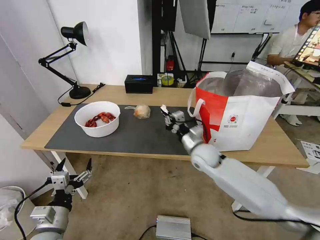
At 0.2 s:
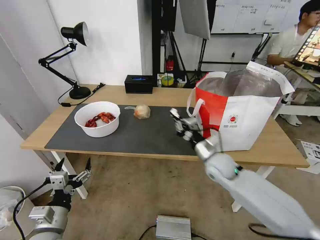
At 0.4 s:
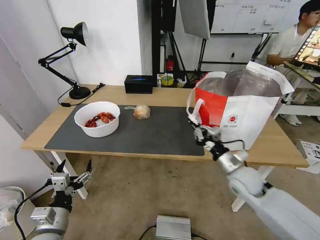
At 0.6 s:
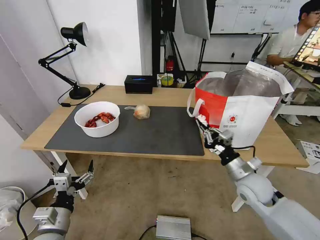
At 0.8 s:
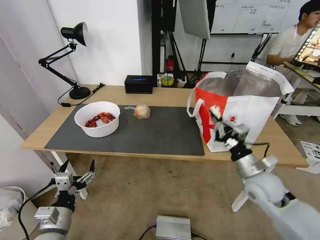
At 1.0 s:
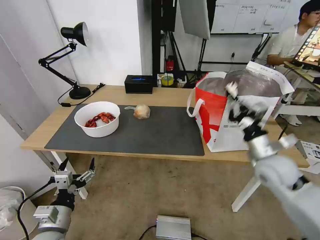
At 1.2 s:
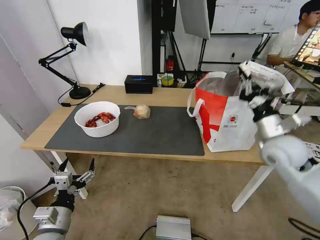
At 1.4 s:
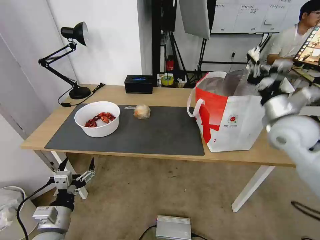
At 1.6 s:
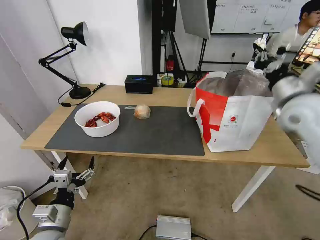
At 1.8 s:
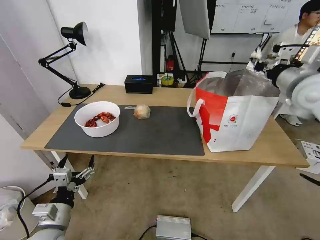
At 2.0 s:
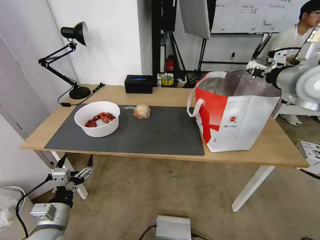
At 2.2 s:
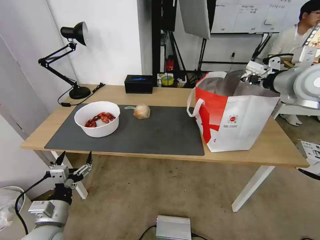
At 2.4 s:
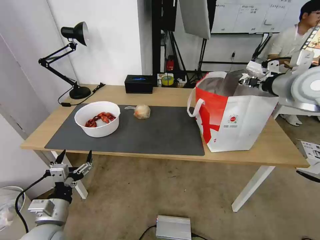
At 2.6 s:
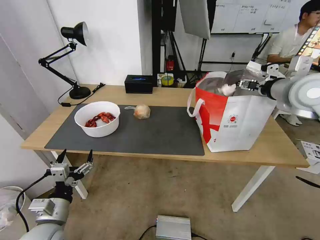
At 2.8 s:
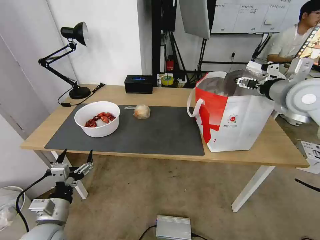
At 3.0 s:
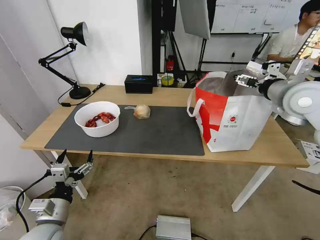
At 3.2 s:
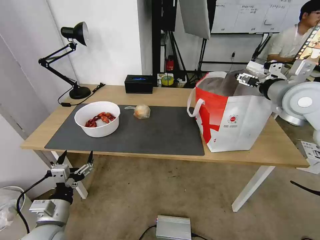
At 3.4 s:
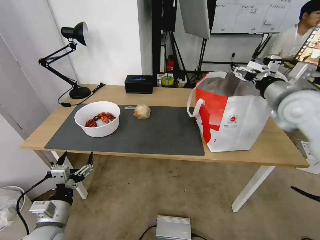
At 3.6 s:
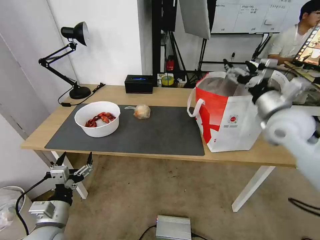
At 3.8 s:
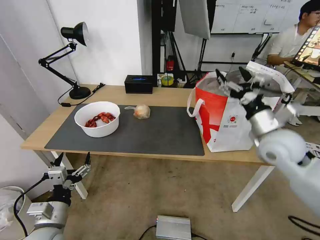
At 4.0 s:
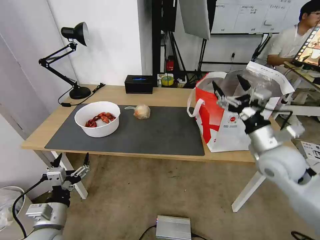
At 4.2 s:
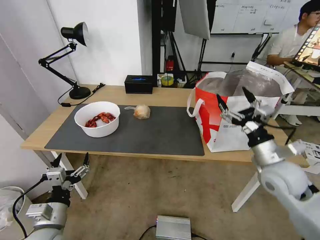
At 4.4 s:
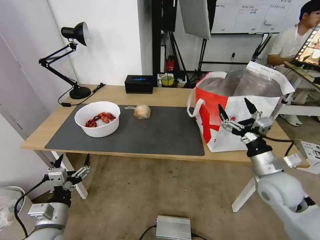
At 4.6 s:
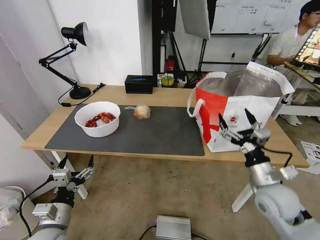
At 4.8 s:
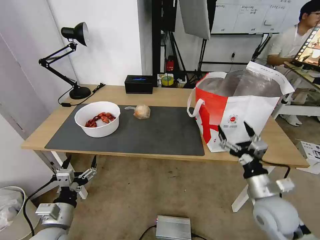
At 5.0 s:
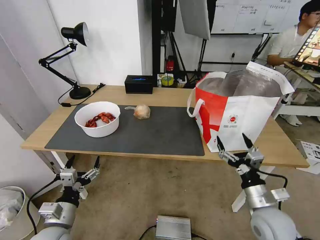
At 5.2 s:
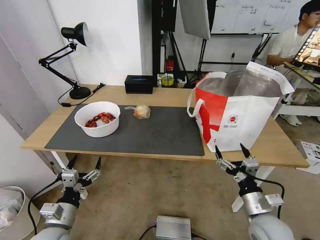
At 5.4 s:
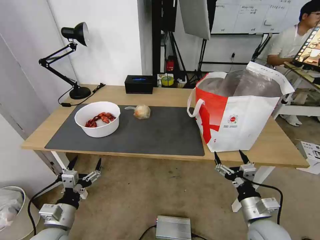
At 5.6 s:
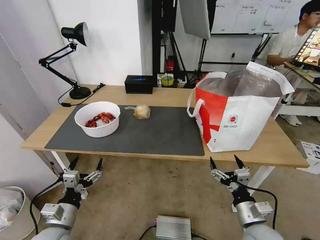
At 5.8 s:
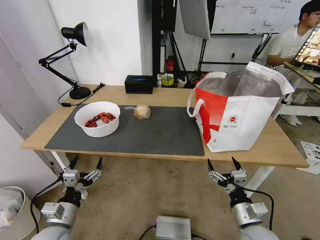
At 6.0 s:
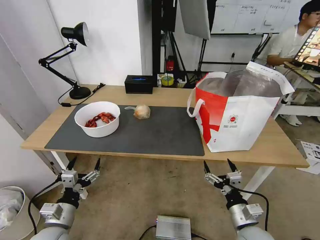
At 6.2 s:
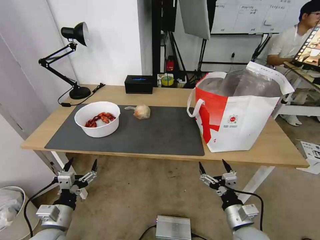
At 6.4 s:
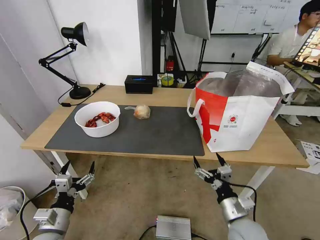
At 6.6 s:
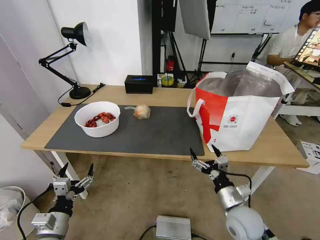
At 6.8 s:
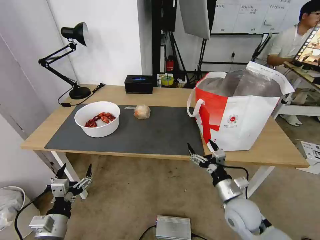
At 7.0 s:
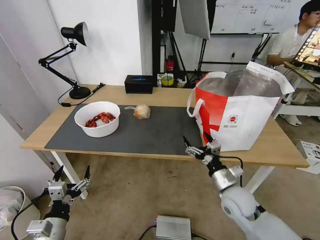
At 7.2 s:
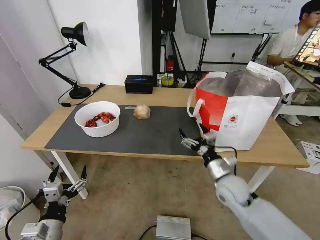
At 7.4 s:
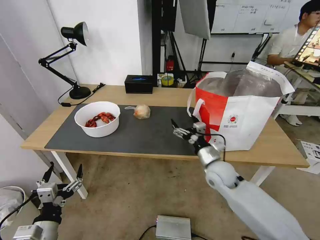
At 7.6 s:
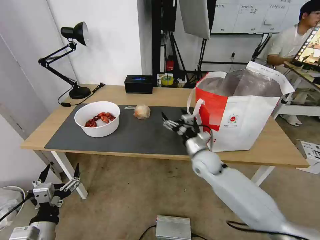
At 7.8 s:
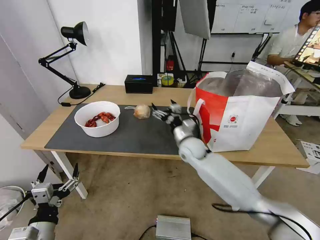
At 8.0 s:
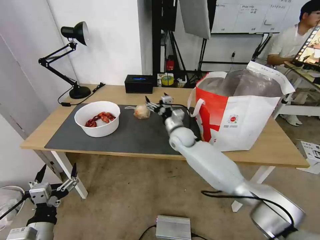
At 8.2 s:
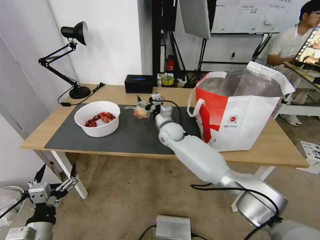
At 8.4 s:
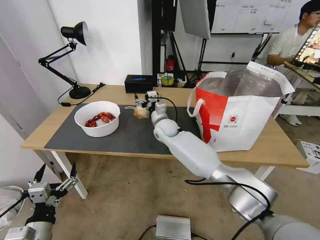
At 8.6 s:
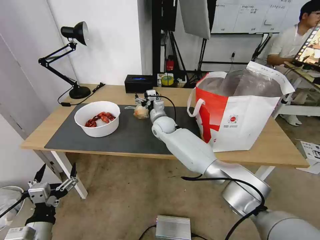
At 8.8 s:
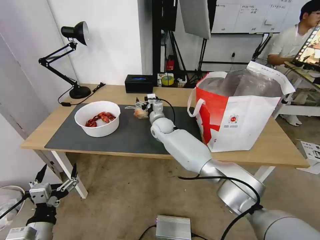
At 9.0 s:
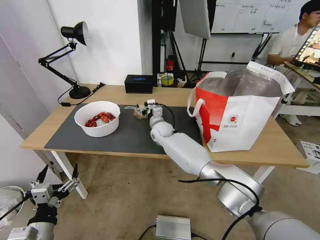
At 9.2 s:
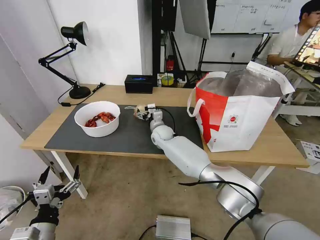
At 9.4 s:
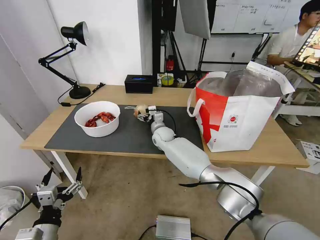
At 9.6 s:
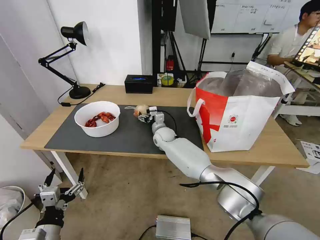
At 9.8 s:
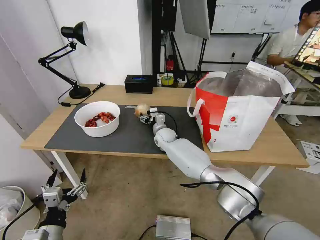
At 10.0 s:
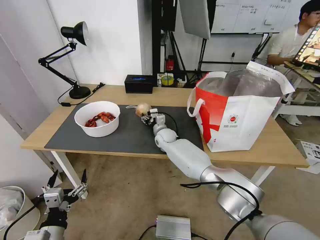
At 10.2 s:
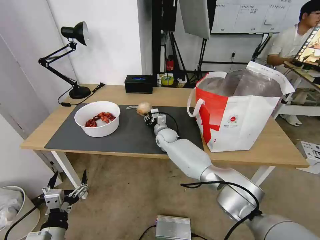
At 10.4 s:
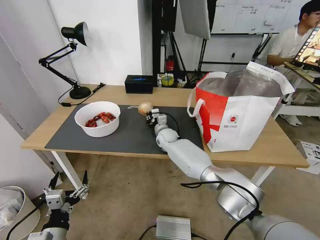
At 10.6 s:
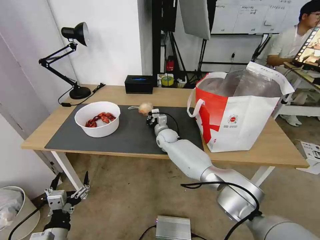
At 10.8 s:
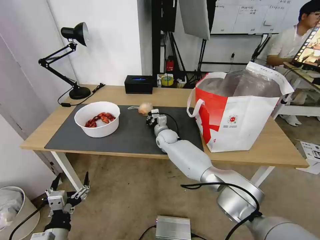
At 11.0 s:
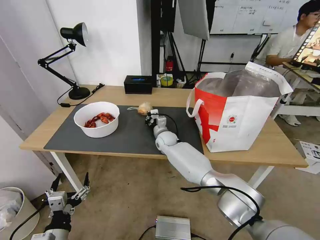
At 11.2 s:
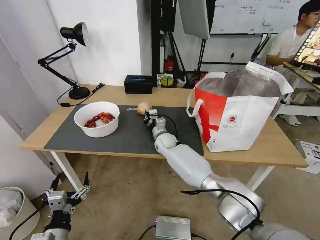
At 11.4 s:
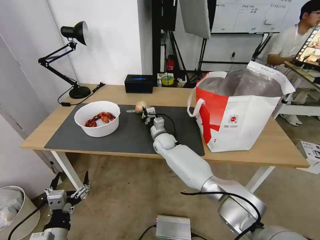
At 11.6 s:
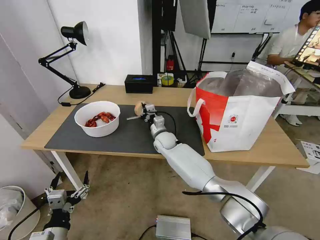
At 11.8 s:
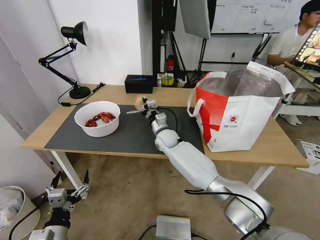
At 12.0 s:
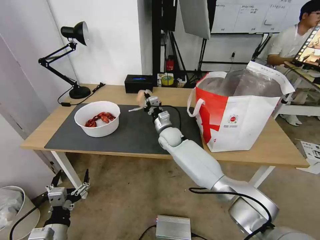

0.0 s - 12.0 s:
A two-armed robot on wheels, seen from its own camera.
Task of the whole recording: Pick up the trash from the table and place it into the takeout bag.
0.0 s - 1.6 s: The right gripper heads upward and to the right, covering about 30 cm.
1.6 s - 3.0 s: The right gripper opens.
3.0 s - 4.4 s: The right gripper goes some 25 cm downward and backward.
4.4 s - 6.0 s: The right gripper moves downward, backward and to the left, roughly 20 cm.
6.0 s - 7.6 s: The left gripper shifts approximately 5 cm backward. Meanwhile the right gripper travels forward and to the left by roughly 25 cm.
7.6 s - 9.0 s: The right gripper travels forward and to the left by approximately 25 cm.
9.0 s - 10.4 s: The right gripper shifts by some 5 cm, and closes up.
10.4 s - 12.0 s: The right gripper changes place by about 5 cm.

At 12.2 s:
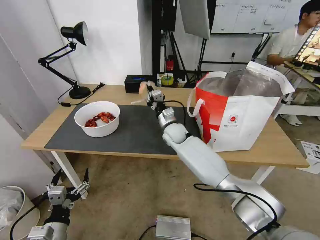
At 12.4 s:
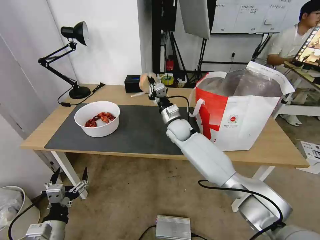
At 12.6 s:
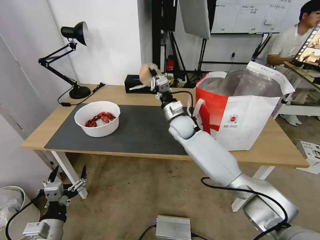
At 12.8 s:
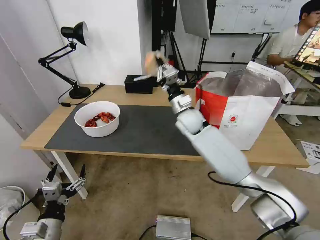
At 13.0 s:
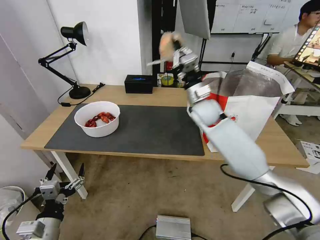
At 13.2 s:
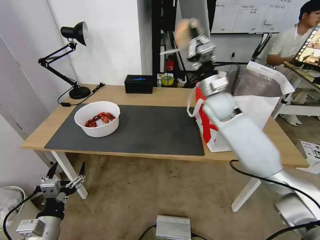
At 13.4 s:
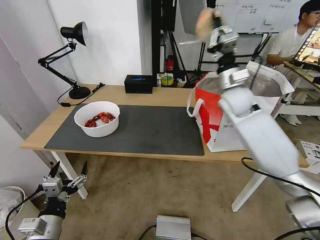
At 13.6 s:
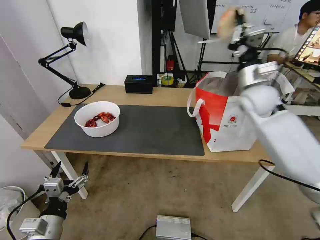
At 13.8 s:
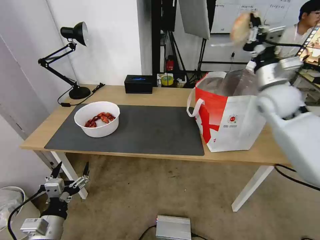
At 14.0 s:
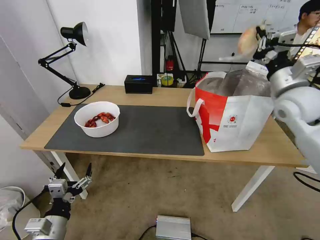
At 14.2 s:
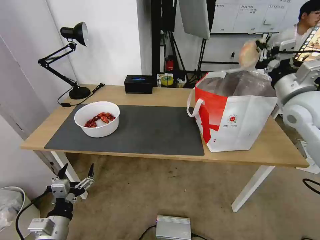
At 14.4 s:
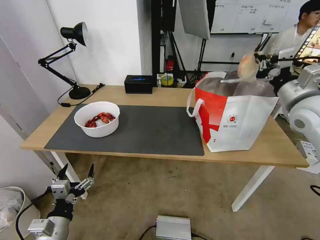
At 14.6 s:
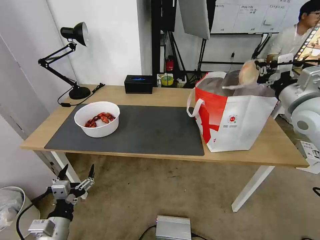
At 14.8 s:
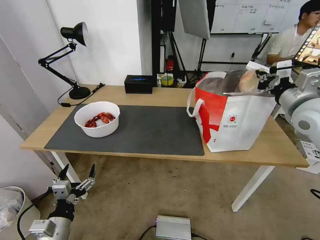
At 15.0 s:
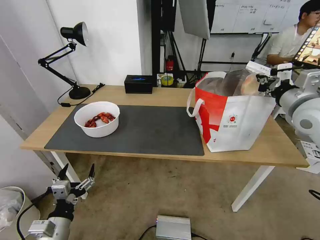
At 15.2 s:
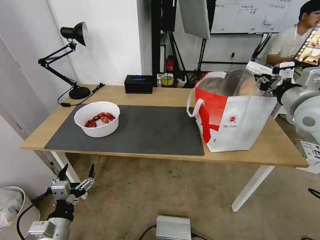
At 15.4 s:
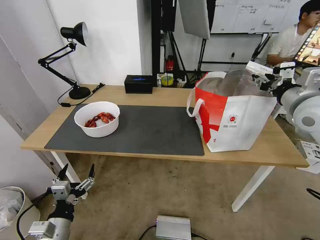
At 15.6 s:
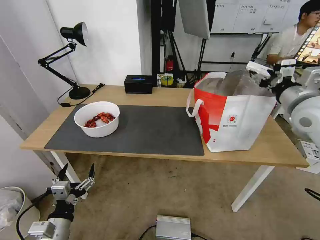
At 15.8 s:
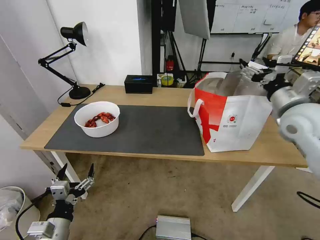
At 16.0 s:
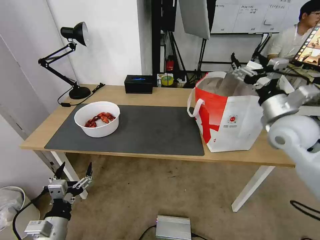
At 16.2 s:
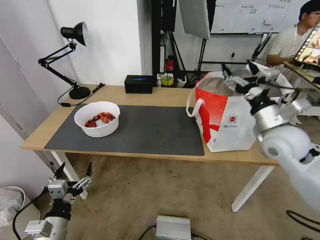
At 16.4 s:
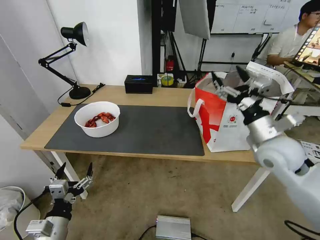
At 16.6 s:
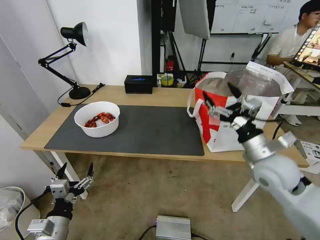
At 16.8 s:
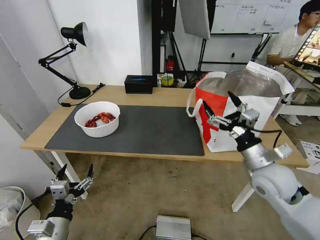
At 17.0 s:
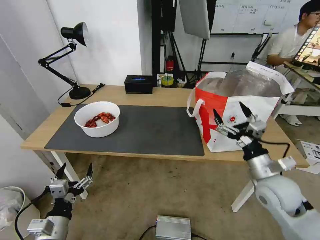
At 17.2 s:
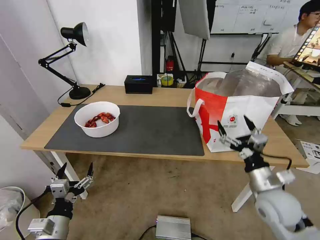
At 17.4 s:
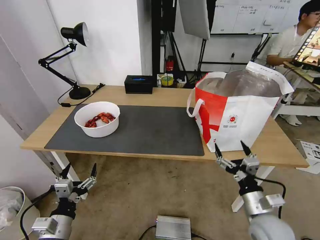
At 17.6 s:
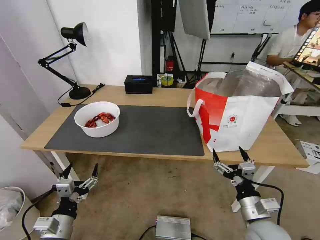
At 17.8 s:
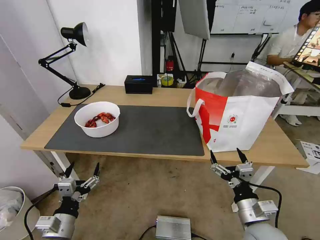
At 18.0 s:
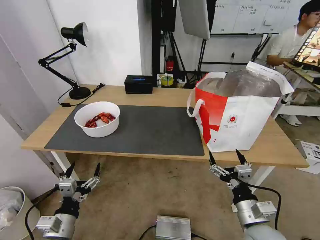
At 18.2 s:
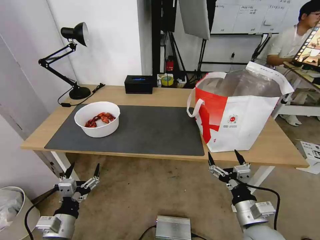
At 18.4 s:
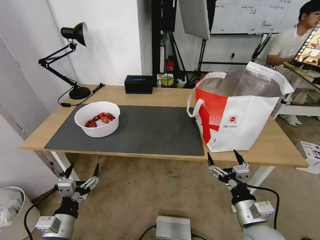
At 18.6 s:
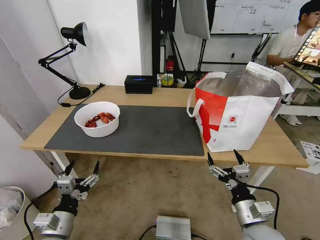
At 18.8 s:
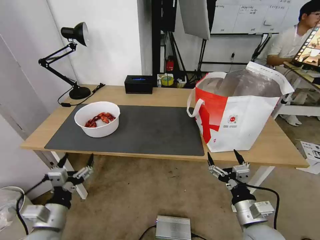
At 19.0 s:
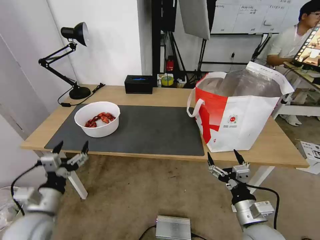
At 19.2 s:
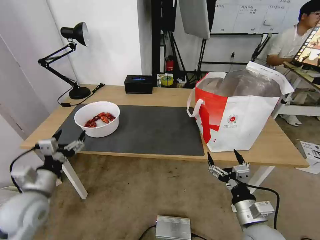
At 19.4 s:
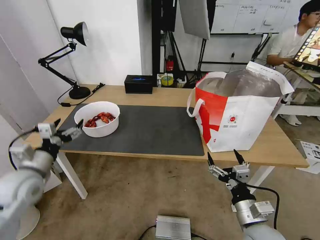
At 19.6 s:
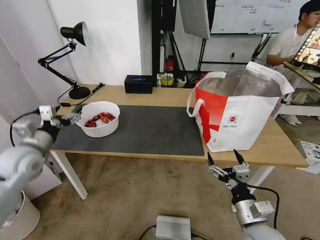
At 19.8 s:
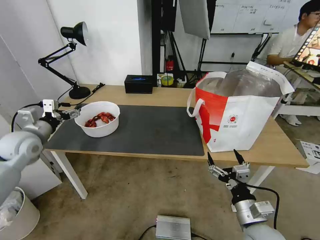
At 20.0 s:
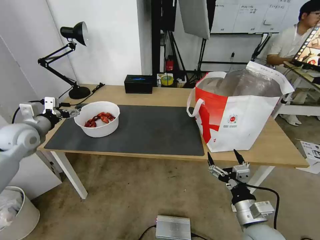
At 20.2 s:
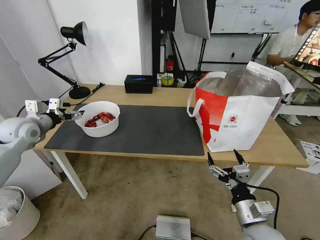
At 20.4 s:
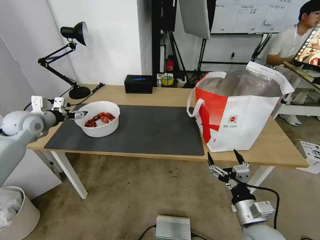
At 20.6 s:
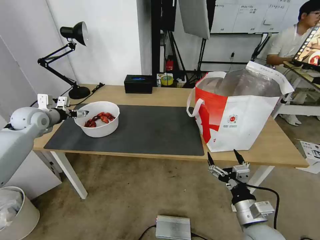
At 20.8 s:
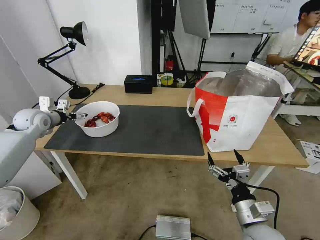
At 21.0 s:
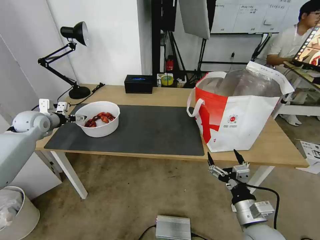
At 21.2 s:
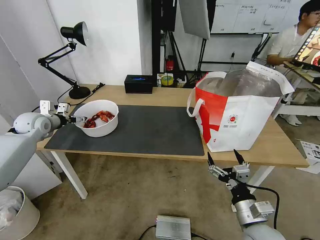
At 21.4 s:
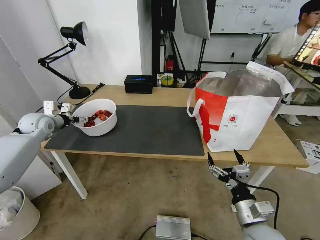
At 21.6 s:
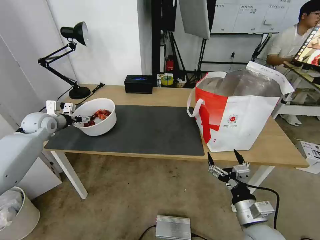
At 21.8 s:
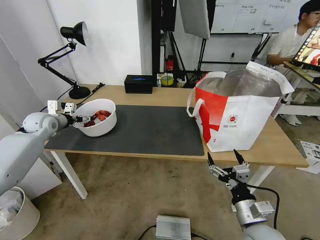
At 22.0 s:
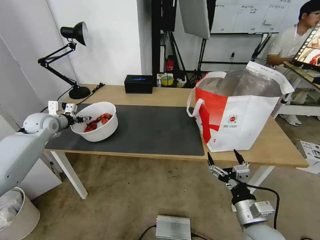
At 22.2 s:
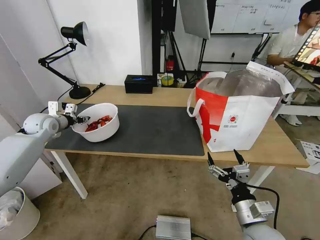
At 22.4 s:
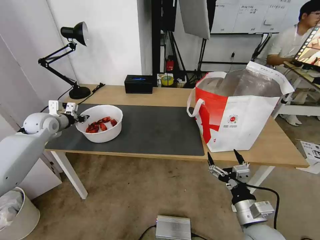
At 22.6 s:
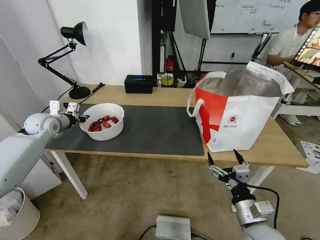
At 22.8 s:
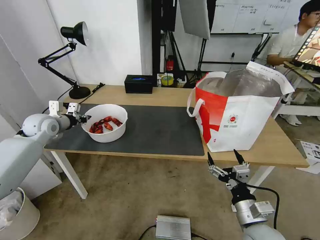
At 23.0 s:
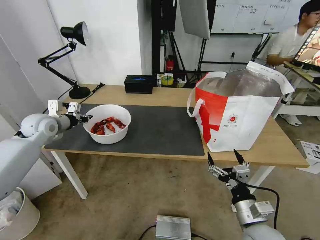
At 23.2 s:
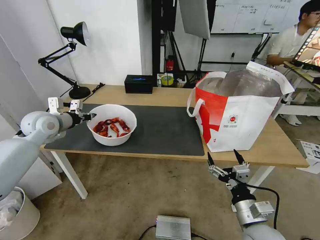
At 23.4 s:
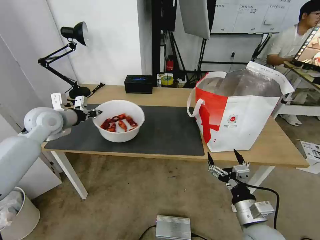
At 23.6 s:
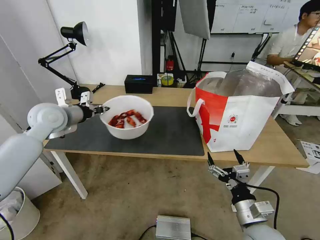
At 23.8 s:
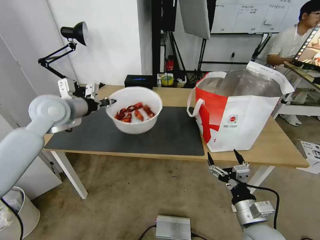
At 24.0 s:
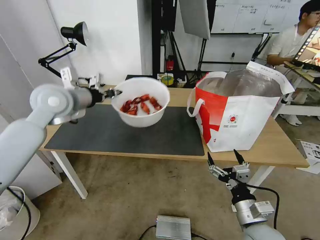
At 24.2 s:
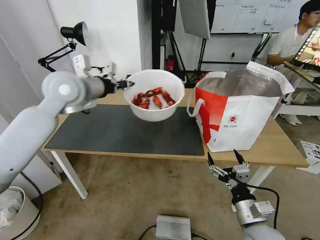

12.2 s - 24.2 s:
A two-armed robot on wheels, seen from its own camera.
Task of the whole recording: Pick up the trash from the table and place it into the takeout bag.
12.2 s - 13.8 s: The right gripper shifts some 35 cm to the right and upward.
13.8 s - 15.2 s: The right gripper travels backward by some 5 cm.
15.2 s - 16.6 s: The right gripper heads downward, to the left and backward, covering roughly 20 cm, and opens.
16.6 s - 18.2 s: The right gripper goes some 20 cm backward and downward.
18.2 s - 19.8 s: The left gripper moves forward, upward and to the left, roughly 30 cm.
19.8 s - 21.2 s: The left gripper travels forward by approximately 10 cm.
21.2 s - 22.6 s: The left gripper closes.
22.6 s - 24.2 s: The left gripper shifts about 25 cm to the right and upward.
